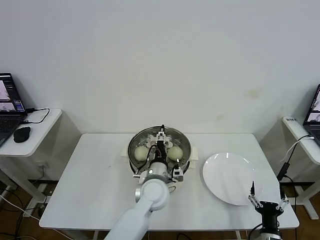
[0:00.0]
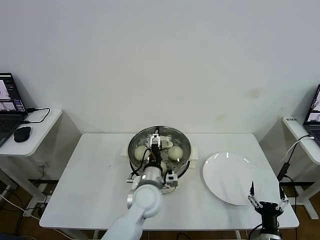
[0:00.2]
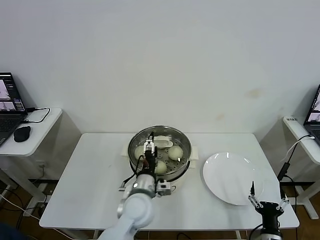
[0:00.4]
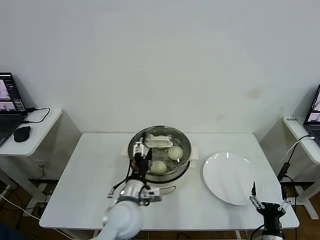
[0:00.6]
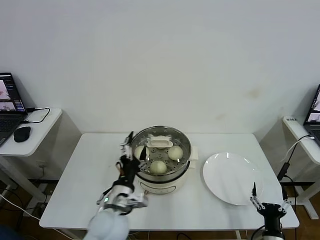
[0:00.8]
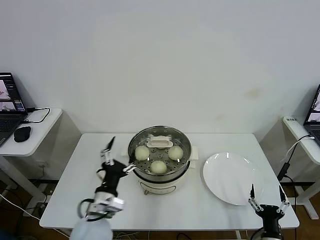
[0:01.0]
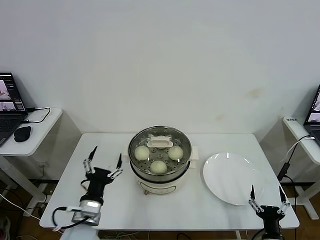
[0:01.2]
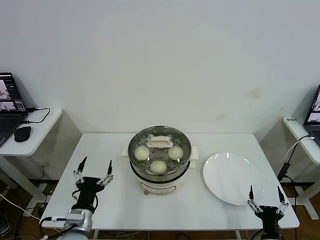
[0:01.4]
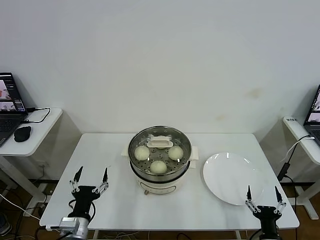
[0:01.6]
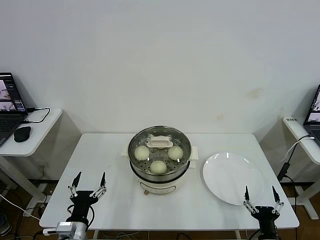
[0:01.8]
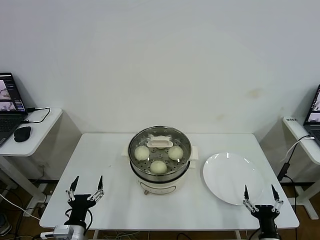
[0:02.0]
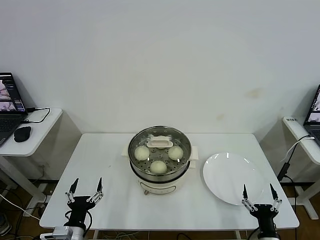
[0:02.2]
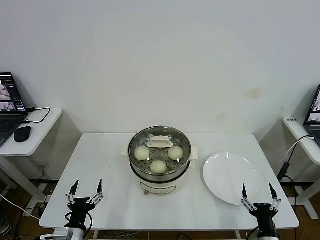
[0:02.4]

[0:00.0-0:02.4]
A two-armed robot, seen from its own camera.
0:00.0 to 0:01.2: The left gripper moves to the left and backward, some 25 cm.
0:01.2 to 0:02.4: The left gripper is displaced downward, to the left and backward by roughly 10 cm.
